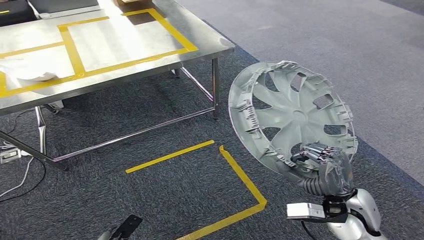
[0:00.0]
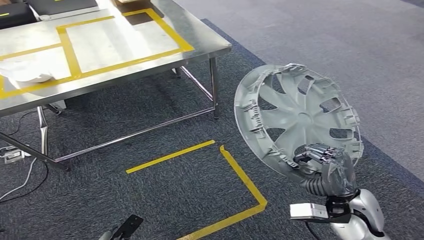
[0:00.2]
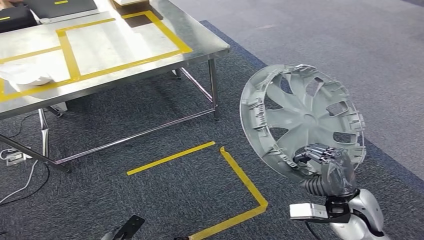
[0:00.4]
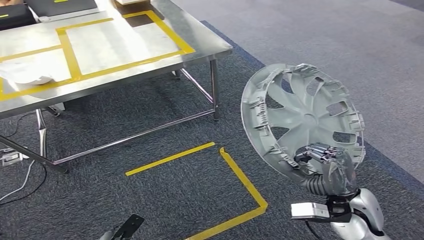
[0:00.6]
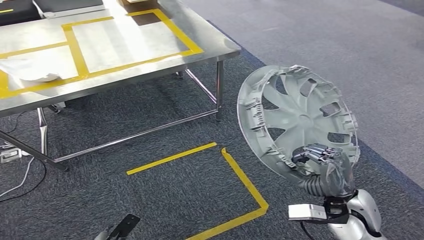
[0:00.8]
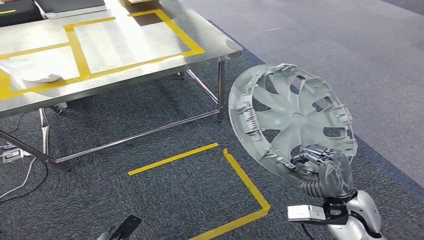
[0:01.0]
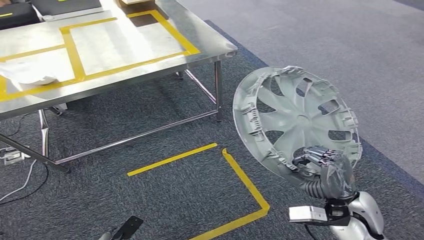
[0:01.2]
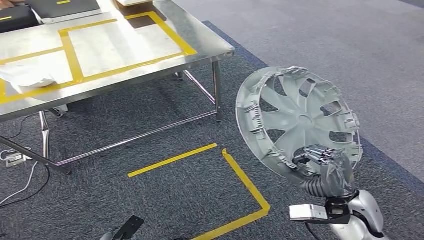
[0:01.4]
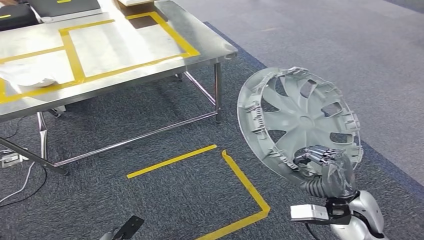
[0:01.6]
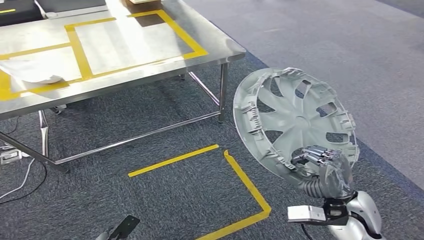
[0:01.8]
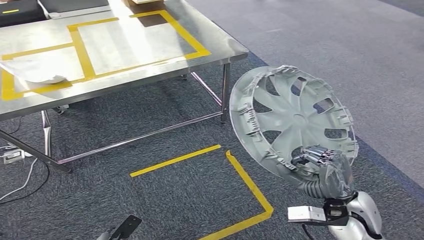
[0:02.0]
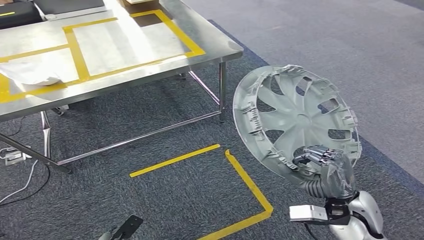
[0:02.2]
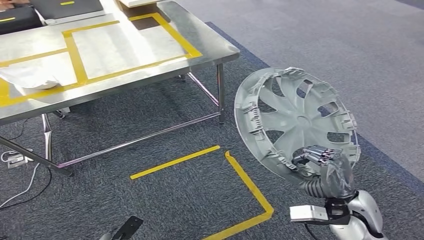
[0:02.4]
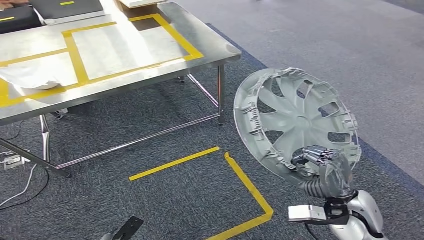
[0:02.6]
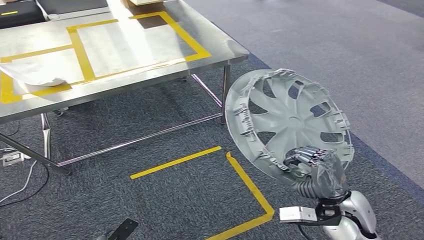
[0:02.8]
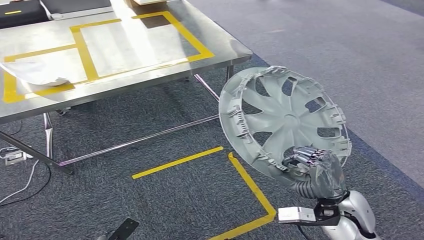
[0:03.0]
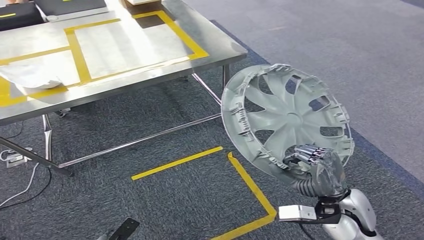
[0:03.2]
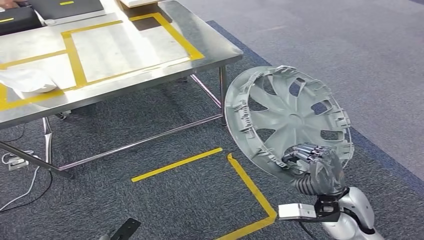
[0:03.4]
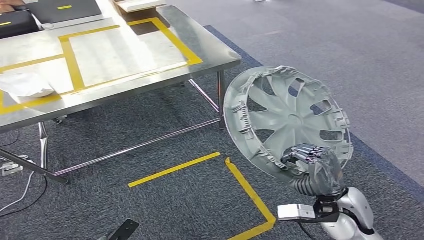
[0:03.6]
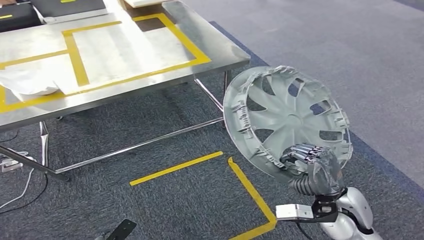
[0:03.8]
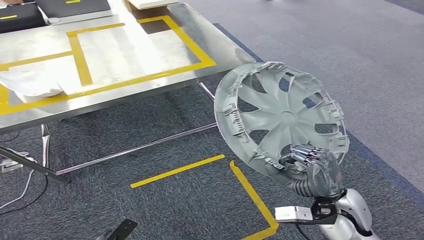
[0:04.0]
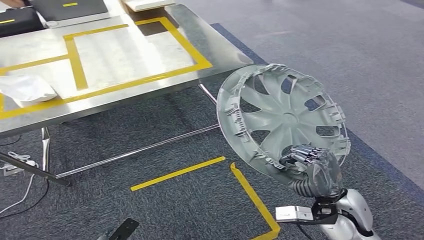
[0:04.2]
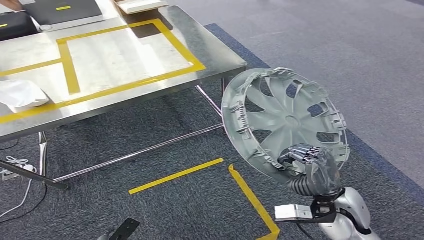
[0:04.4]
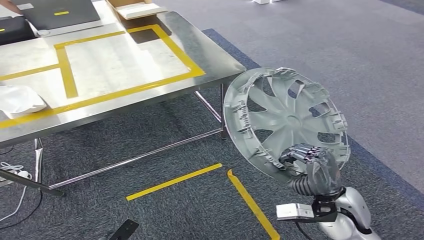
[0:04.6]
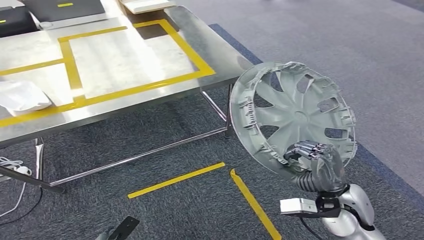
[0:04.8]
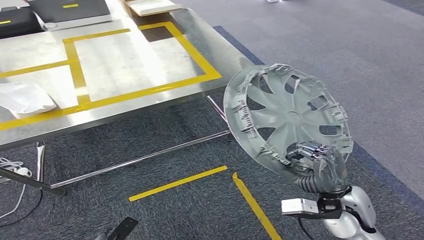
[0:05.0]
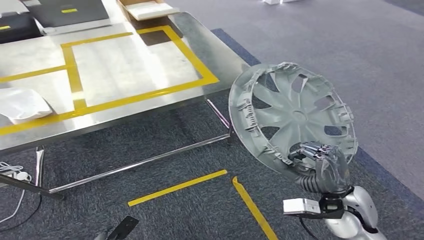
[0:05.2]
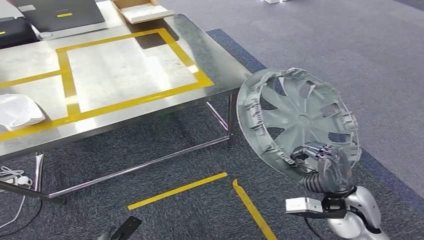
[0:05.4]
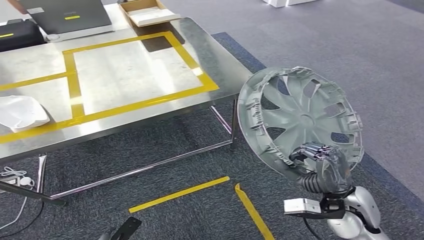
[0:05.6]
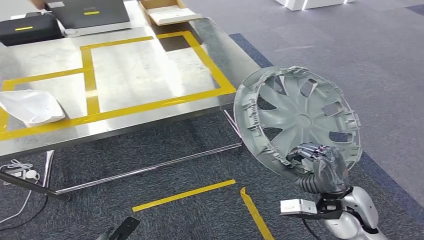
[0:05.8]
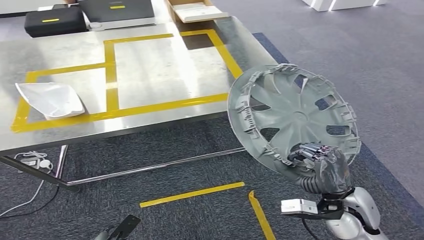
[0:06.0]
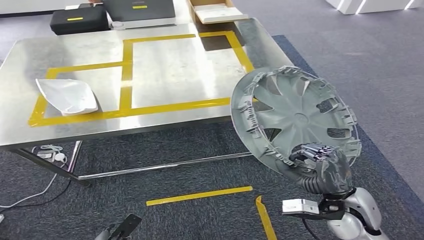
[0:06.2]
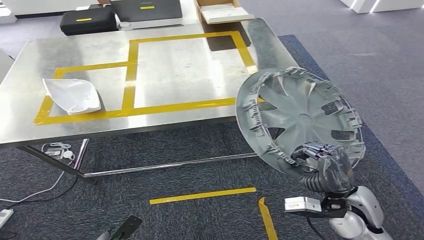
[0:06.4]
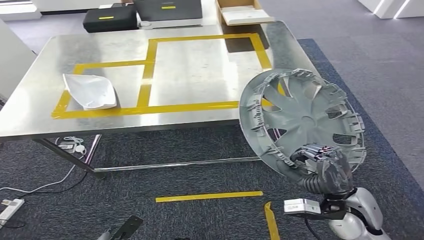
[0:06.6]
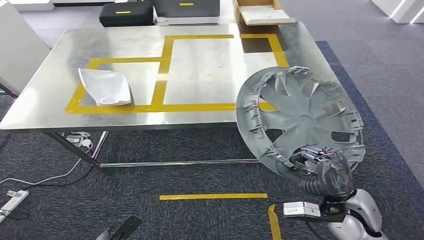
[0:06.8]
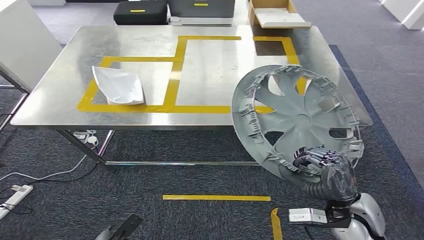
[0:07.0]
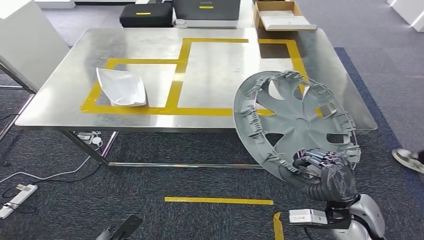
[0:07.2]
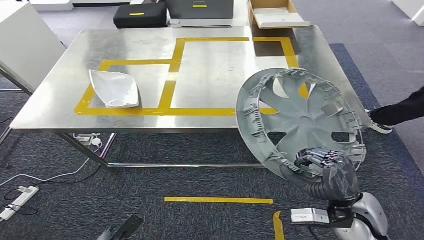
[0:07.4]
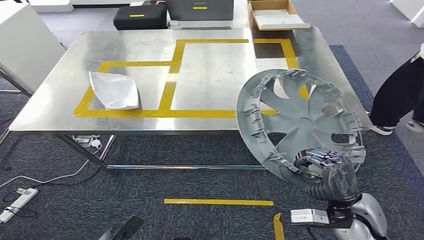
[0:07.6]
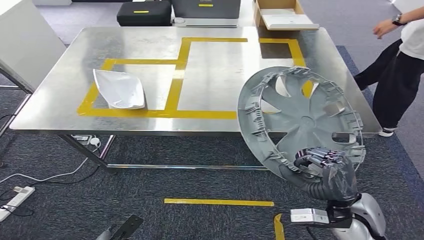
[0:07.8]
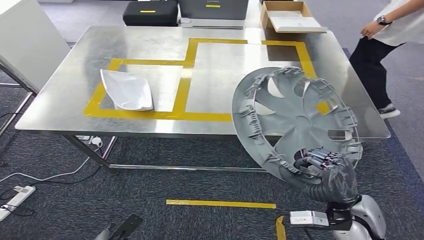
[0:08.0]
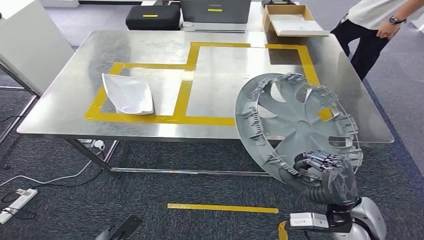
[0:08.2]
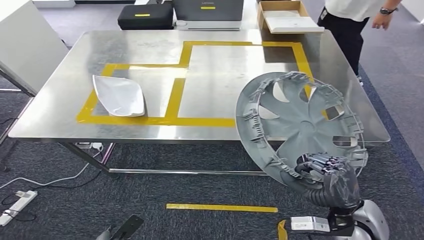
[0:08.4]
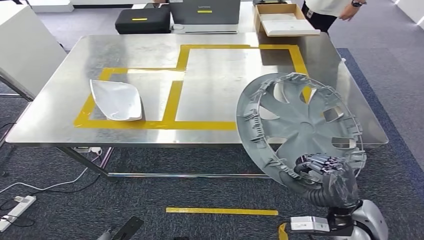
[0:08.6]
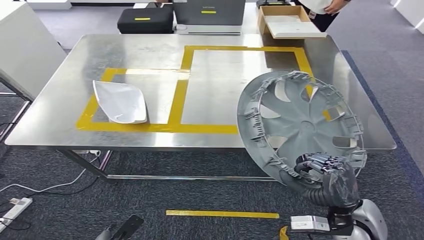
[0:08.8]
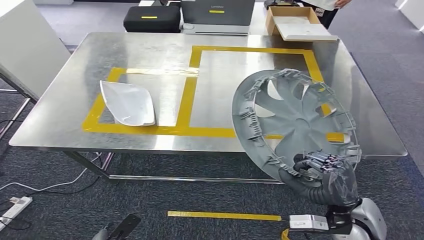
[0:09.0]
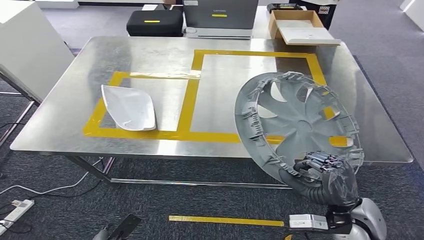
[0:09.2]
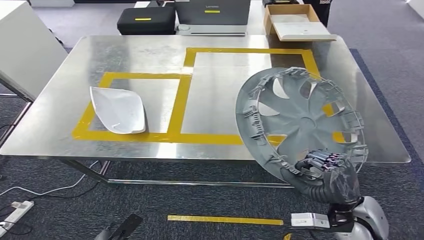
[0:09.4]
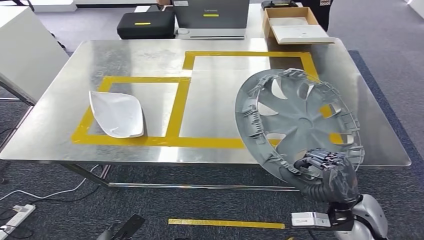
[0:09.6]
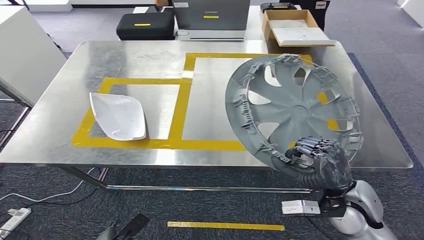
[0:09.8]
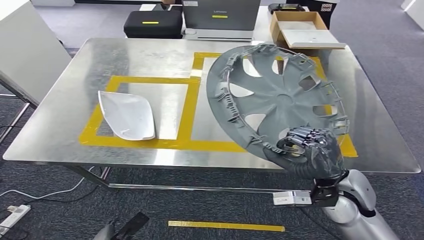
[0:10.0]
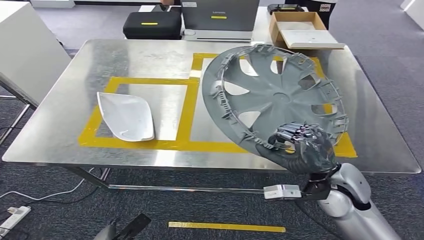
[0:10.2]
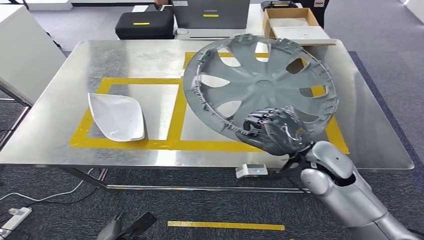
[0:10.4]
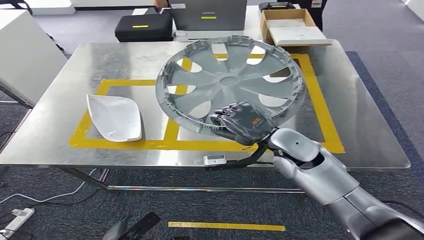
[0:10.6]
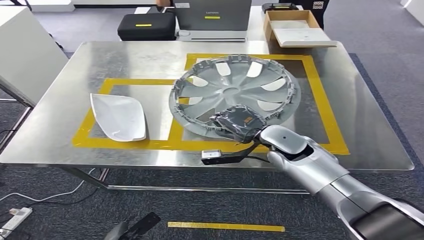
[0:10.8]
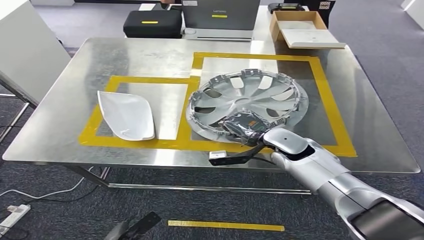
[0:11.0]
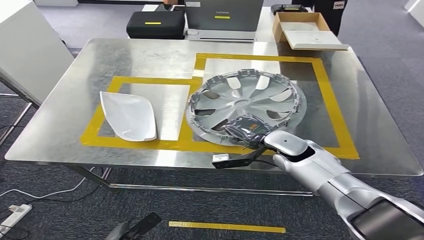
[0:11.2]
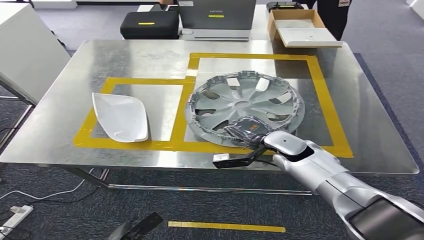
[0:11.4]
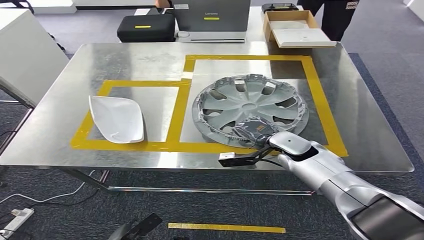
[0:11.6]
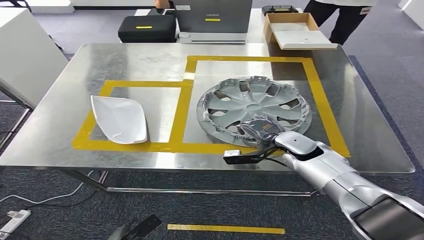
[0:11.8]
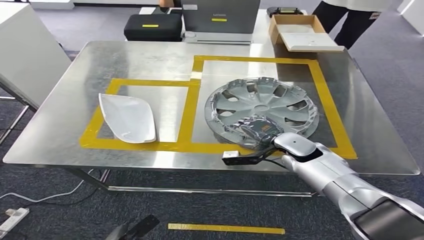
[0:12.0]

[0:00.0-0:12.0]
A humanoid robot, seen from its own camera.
Step, 0:00.0 to 0:08.4: Move the small parts to the workbench.

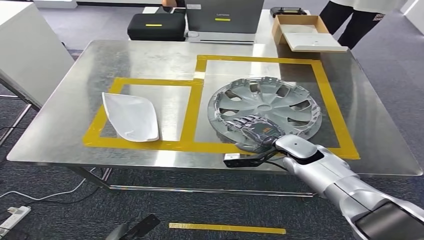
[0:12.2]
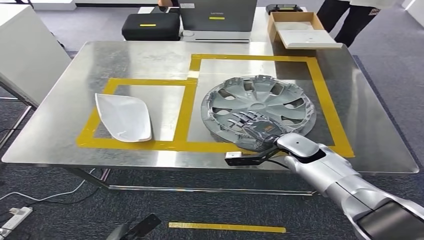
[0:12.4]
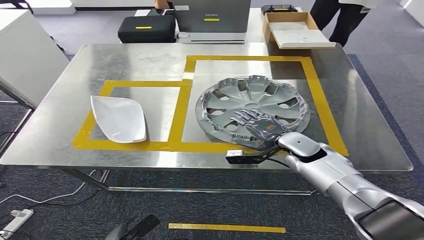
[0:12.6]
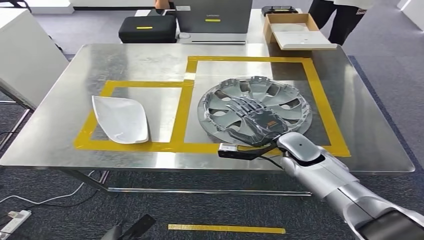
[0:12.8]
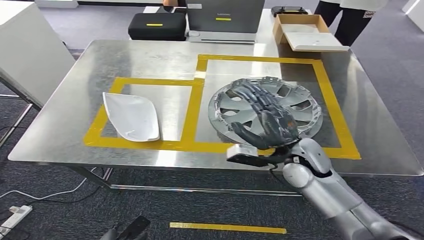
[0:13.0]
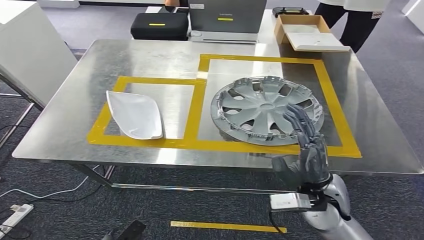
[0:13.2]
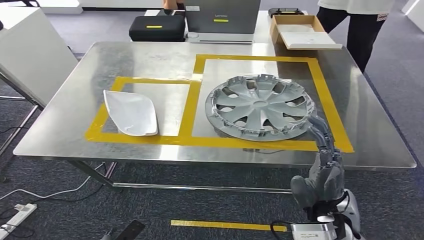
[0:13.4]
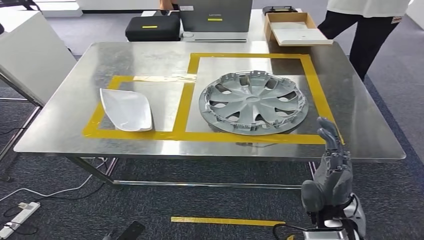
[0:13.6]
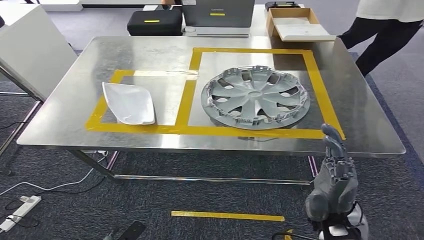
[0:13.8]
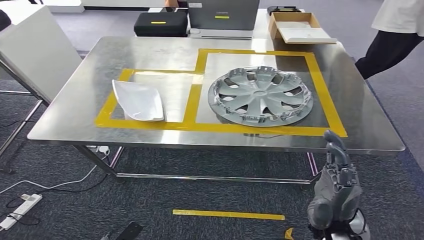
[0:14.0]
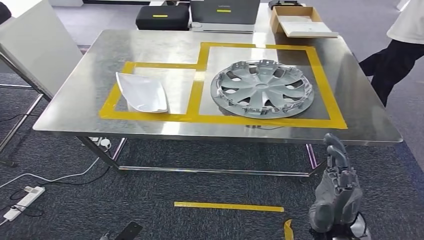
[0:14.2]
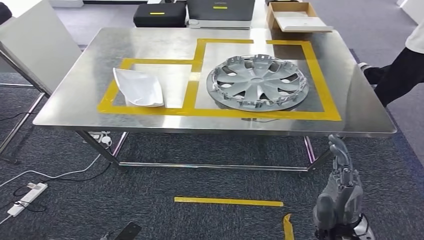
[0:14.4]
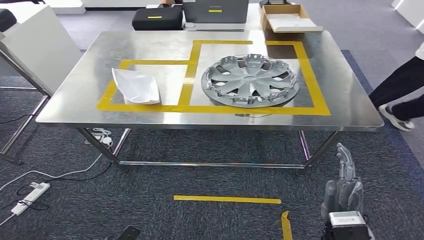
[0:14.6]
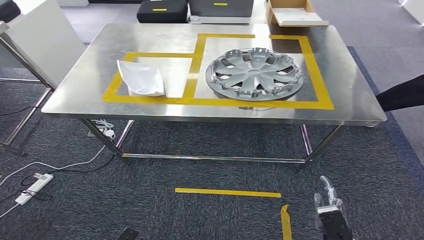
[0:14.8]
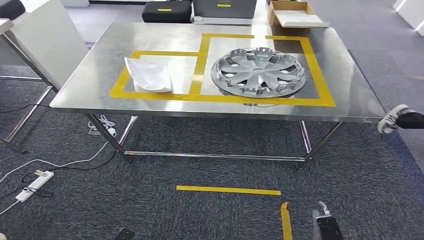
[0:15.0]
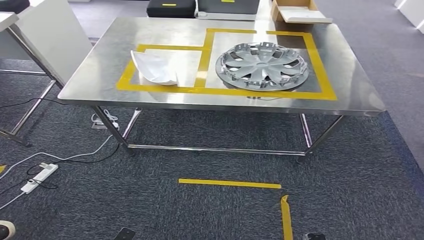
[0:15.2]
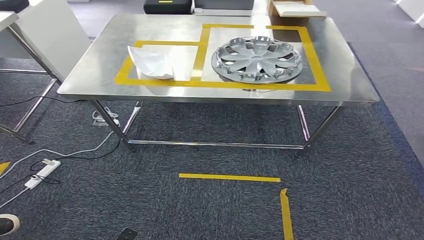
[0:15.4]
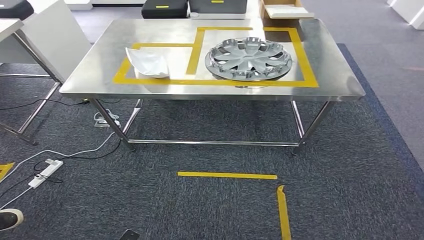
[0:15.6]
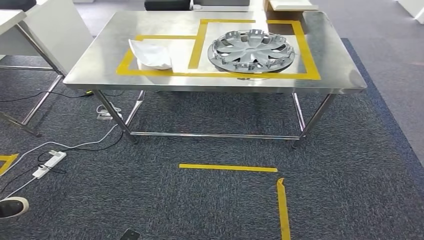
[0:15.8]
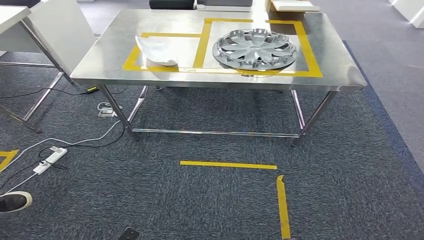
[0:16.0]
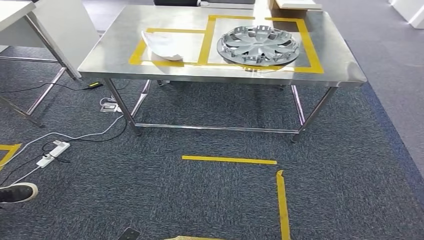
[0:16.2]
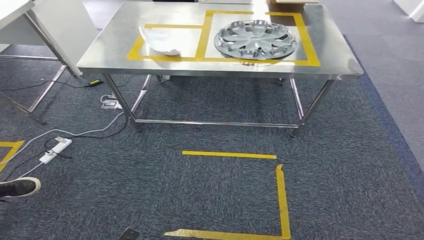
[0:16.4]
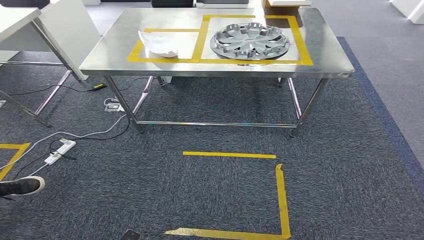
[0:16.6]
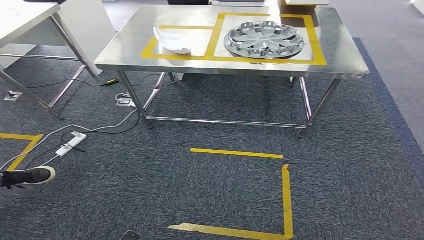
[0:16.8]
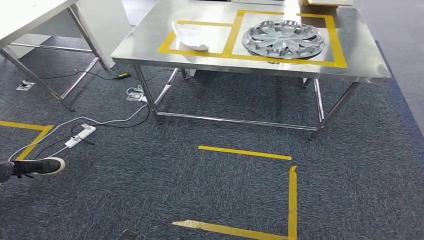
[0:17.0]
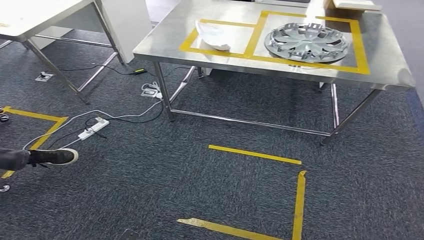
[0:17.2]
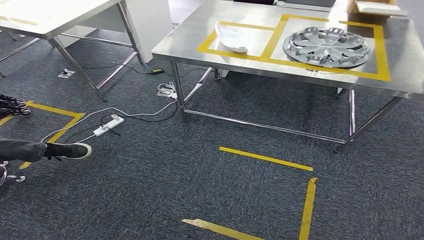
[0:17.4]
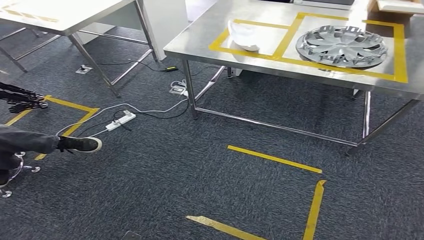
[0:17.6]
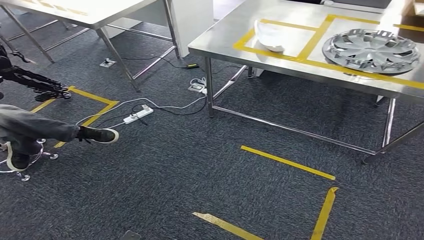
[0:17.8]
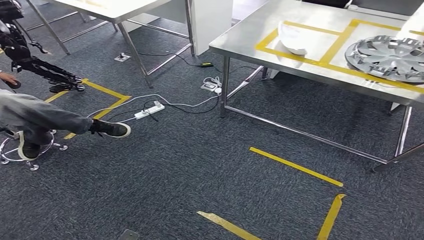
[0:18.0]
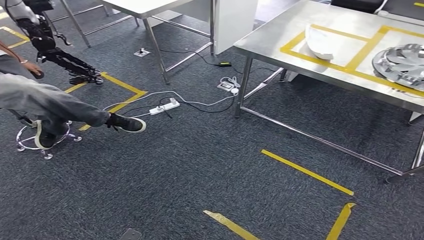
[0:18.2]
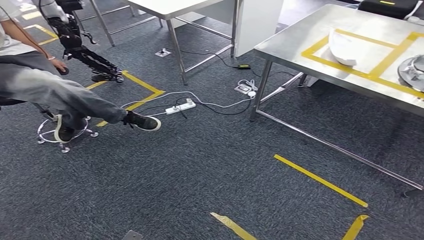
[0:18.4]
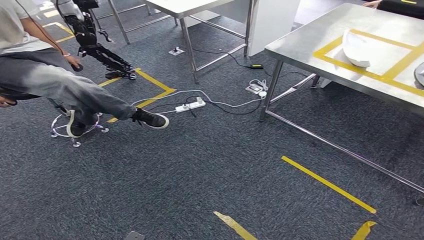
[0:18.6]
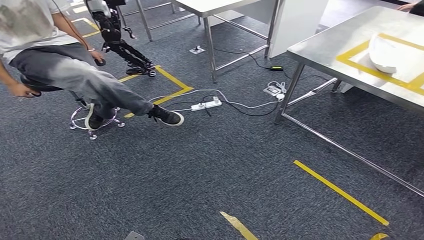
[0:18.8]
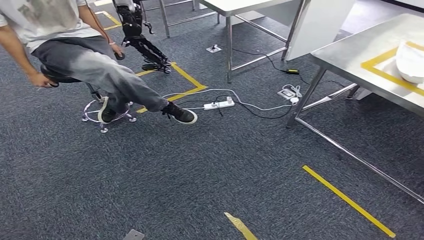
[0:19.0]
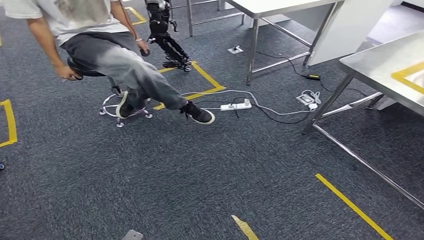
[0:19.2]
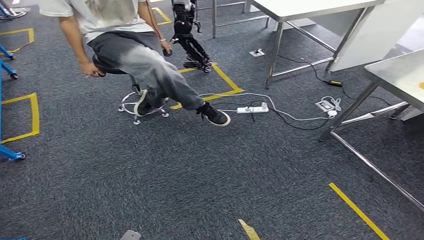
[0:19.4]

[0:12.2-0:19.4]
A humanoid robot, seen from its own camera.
Step, 0:12.2 to 0:14.4: Insert the small parts into the corresponding holes on the workbench.
